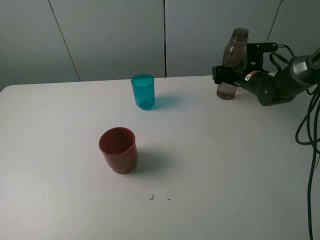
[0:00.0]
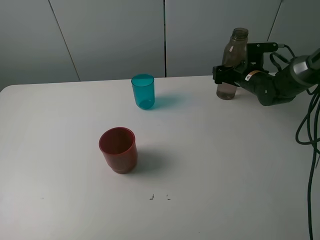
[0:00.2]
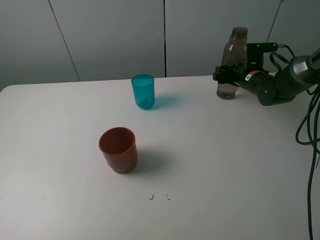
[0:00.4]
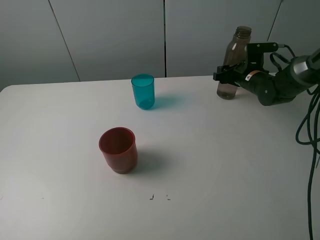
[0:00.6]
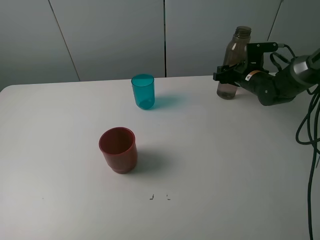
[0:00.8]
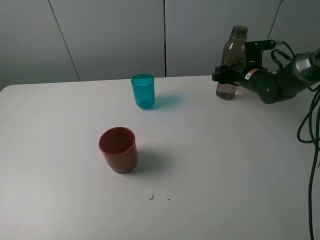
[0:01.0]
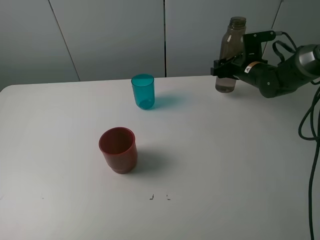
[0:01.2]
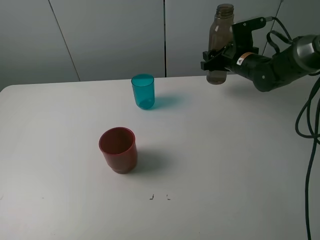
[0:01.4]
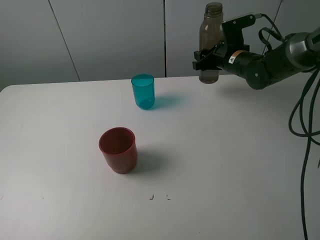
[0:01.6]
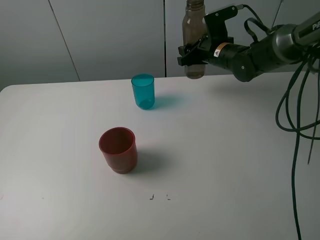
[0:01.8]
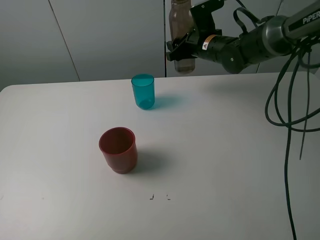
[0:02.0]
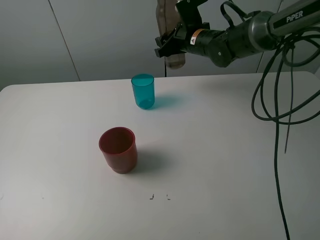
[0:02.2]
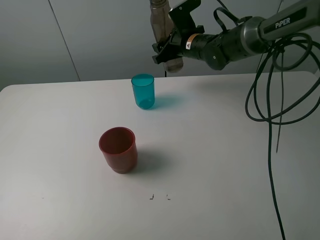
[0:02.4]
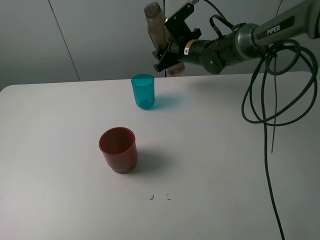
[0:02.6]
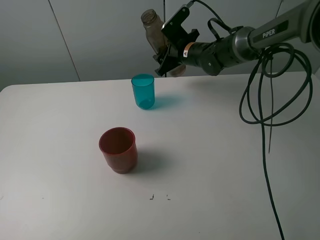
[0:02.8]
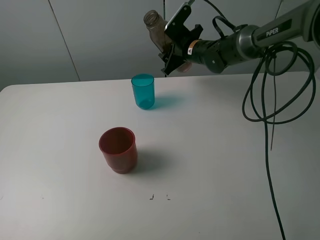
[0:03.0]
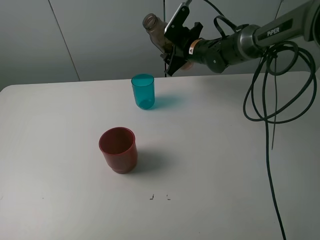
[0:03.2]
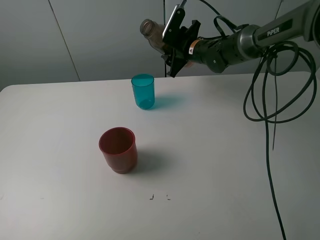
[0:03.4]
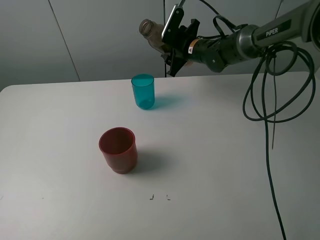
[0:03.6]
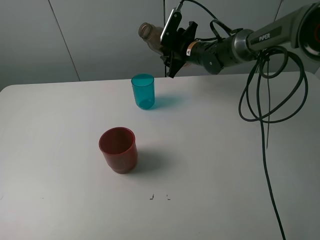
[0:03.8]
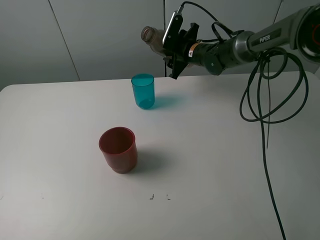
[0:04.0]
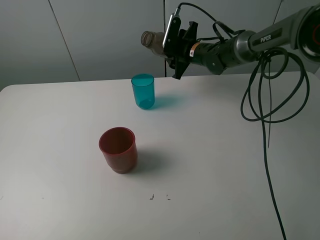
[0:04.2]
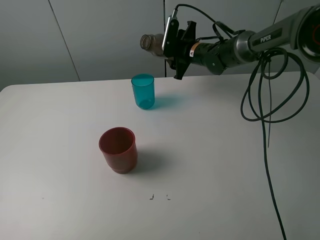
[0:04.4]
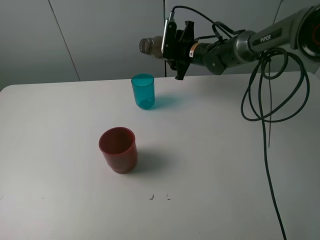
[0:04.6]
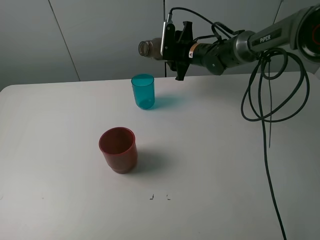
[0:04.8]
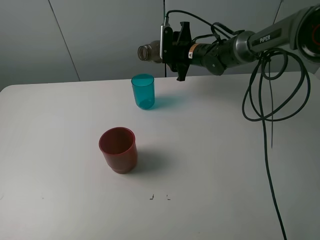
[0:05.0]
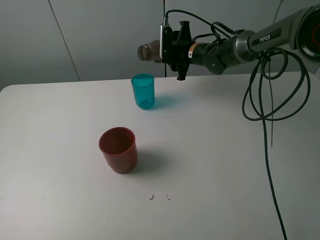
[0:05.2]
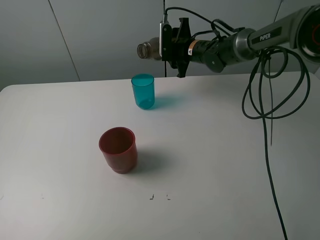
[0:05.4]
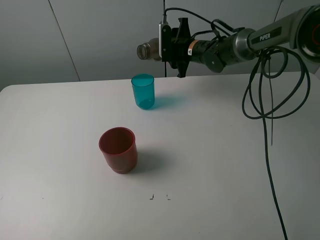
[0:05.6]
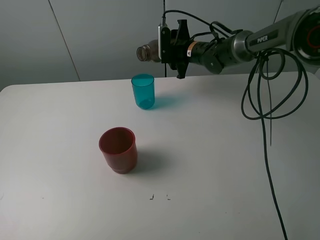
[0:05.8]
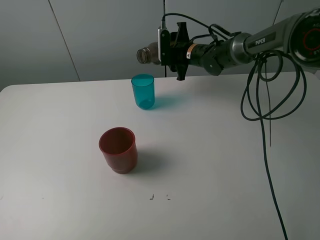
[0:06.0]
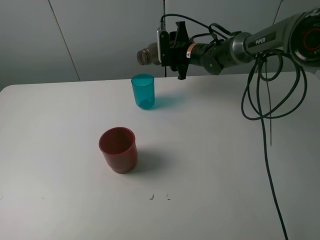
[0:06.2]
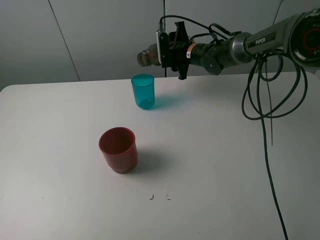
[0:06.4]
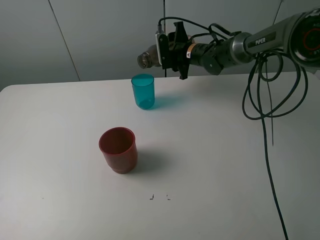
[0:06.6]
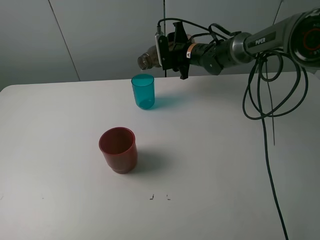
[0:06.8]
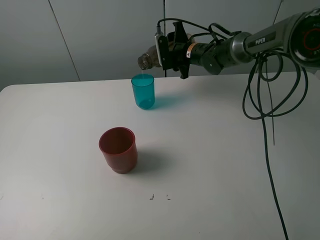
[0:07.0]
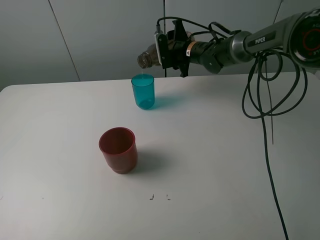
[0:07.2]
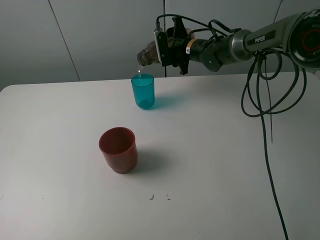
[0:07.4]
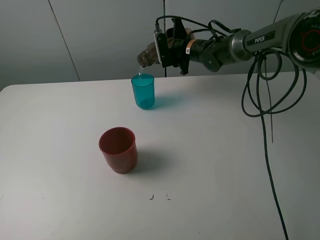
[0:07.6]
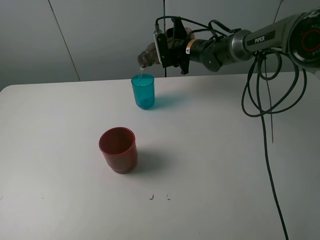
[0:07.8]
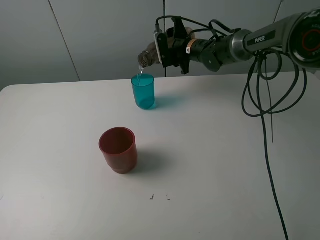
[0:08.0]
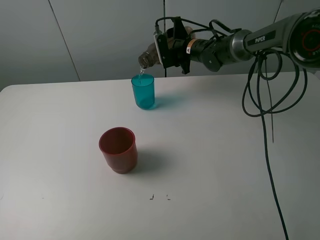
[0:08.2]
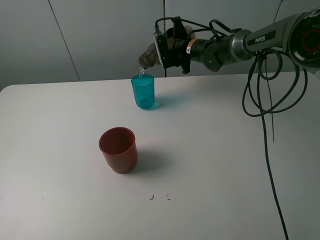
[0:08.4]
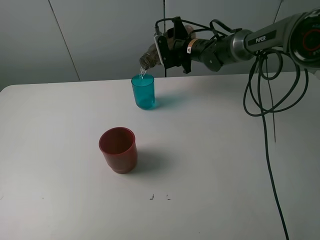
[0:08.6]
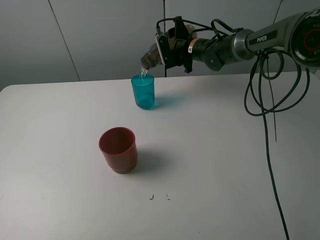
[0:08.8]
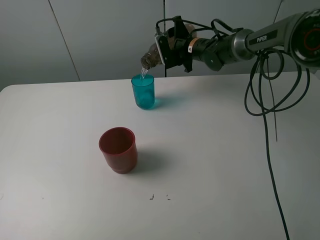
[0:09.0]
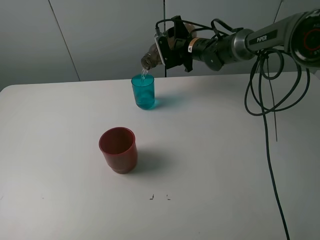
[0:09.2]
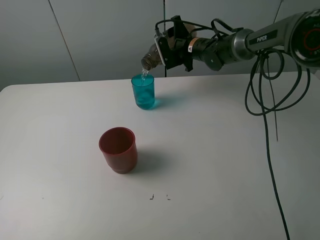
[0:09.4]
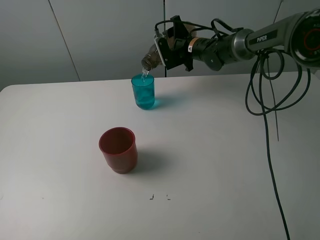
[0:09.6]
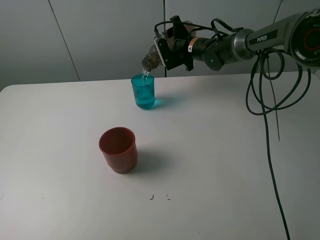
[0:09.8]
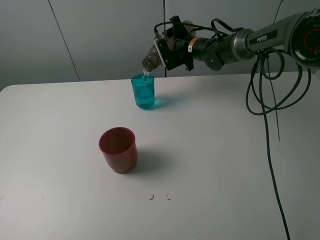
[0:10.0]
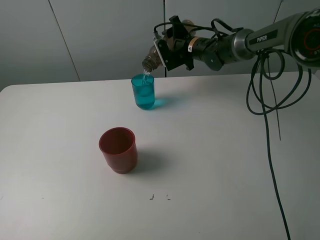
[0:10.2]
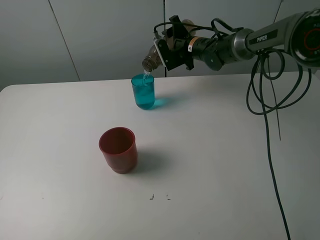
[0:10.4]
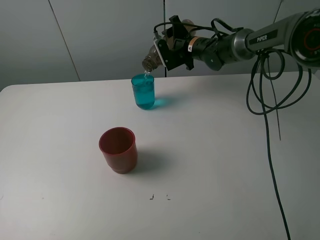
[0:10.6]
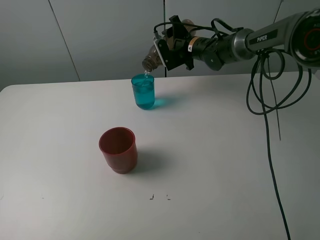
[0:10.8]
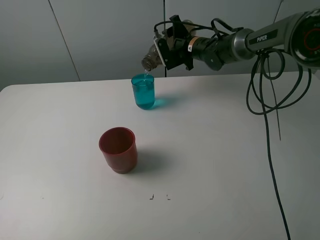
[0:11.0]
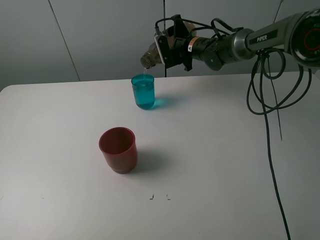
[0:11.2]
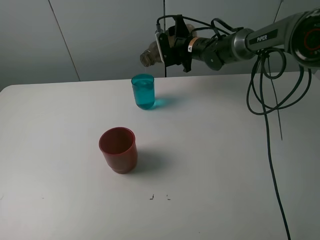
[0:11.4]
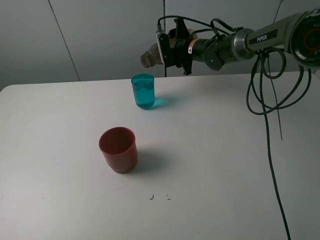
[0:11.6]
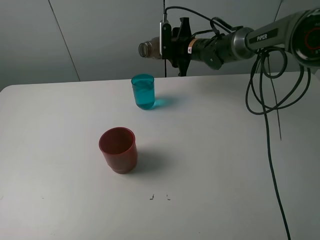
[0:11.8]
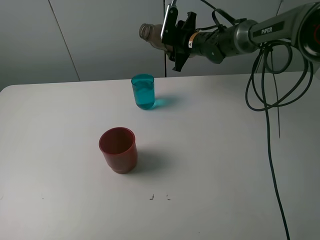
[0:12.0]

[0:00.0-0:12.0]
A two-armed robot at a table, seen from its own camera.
Task of the whole recording: pick up the bottle and pour water into the cup, then pick up the cup containing water and pour it into another cup.
Step, 0:00.8 to 0:11.6: Pour water from brown bottle to blue cup with the right gripper.
0:00.0 to 0:01.6: The right gripper goes roughly 10 cm to the left and upward, and closes up.
0:01.6 to 0:03.0: The right gripper shifts some 10 cm to the left.
0:04.4 to 0:06.0: The grippers stay close to where they were, moving slightly.
0:06.0 to 0:09.0: The grippers stay close to where they were, moving slightly.
0:09.0 to 0:10.4: The grippers make only small movements.

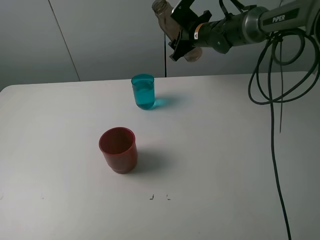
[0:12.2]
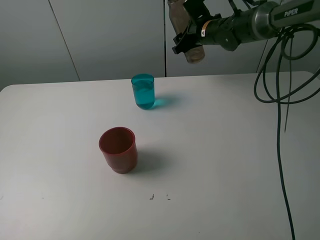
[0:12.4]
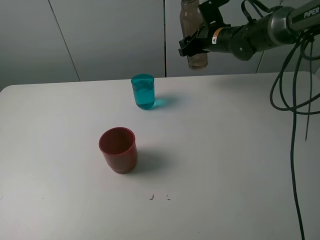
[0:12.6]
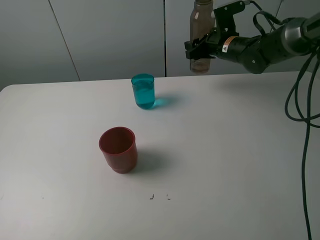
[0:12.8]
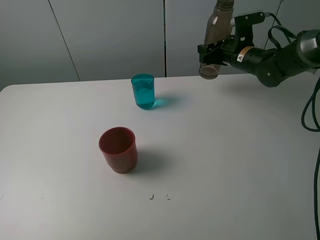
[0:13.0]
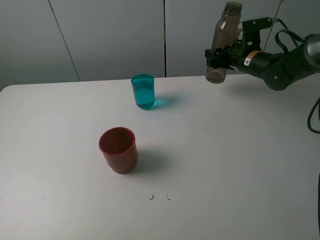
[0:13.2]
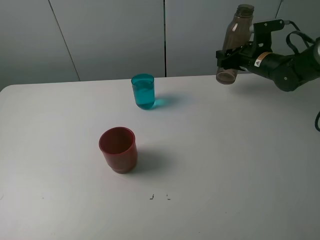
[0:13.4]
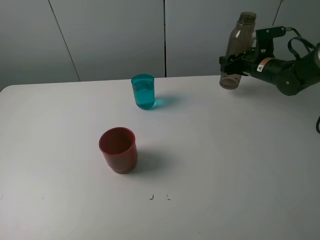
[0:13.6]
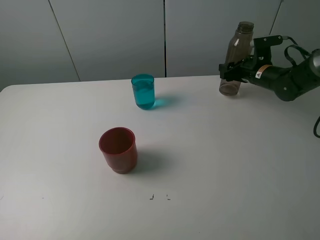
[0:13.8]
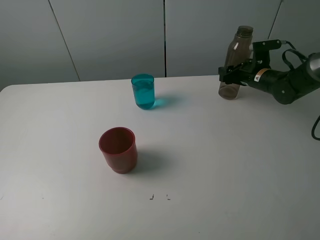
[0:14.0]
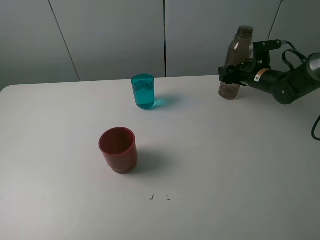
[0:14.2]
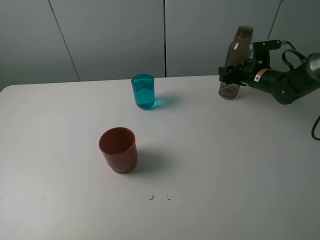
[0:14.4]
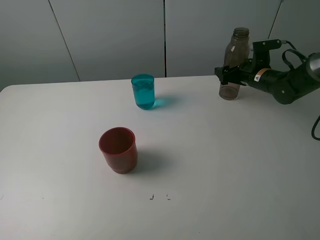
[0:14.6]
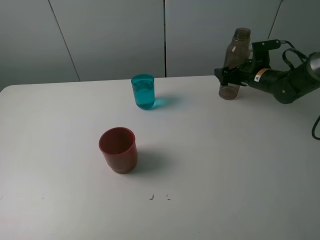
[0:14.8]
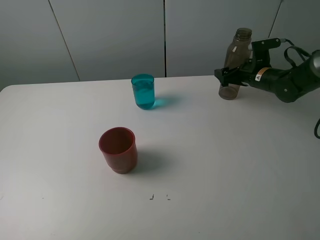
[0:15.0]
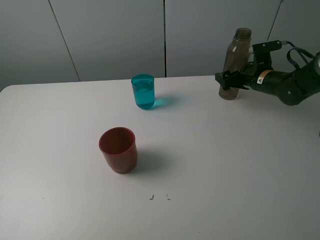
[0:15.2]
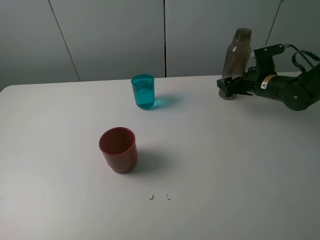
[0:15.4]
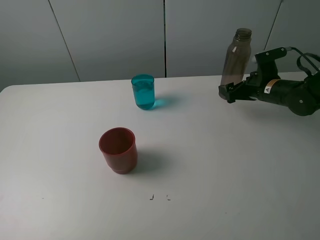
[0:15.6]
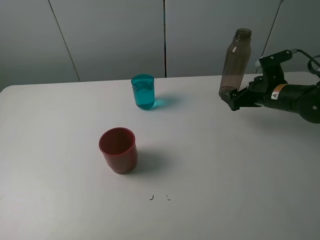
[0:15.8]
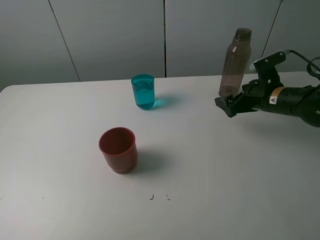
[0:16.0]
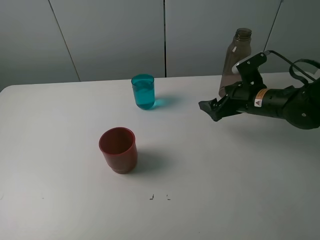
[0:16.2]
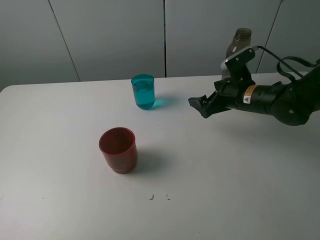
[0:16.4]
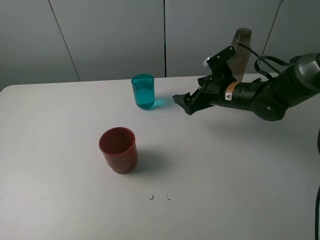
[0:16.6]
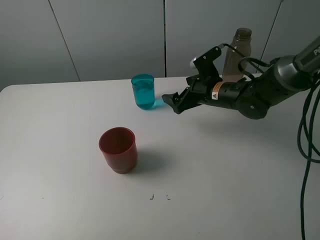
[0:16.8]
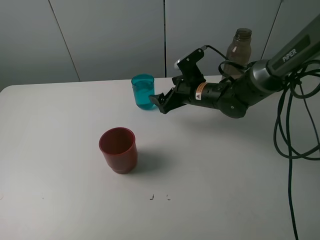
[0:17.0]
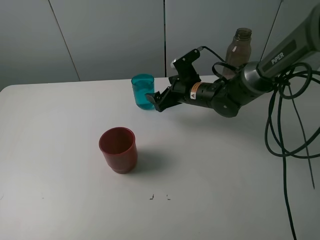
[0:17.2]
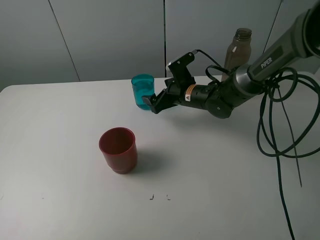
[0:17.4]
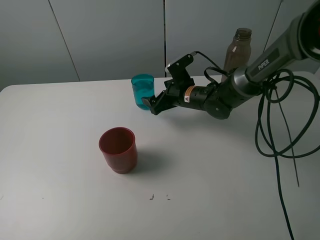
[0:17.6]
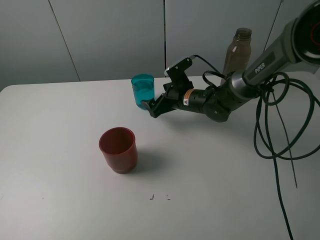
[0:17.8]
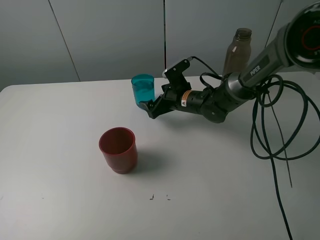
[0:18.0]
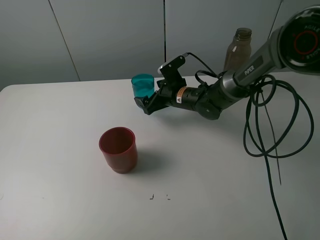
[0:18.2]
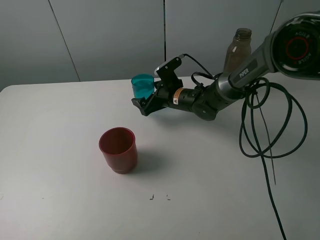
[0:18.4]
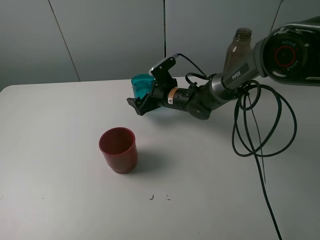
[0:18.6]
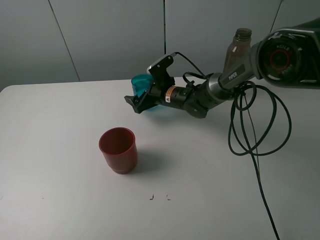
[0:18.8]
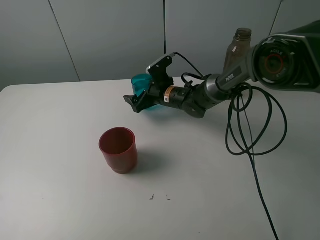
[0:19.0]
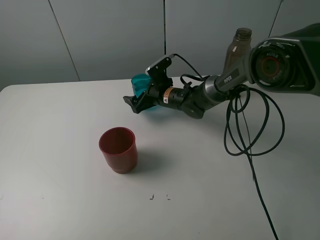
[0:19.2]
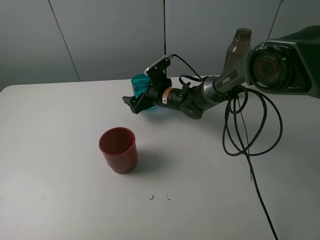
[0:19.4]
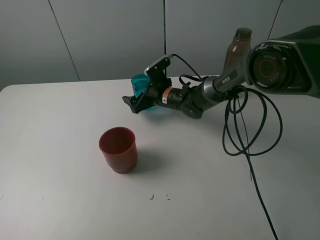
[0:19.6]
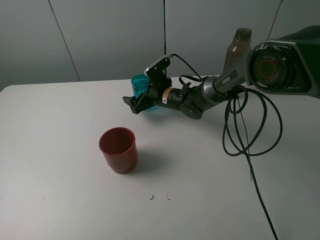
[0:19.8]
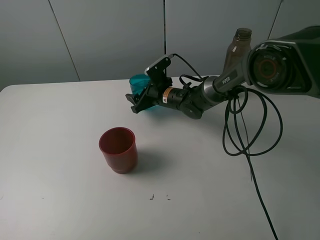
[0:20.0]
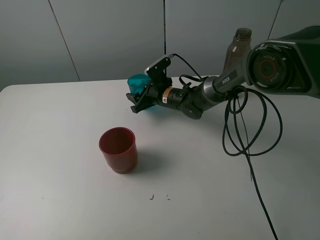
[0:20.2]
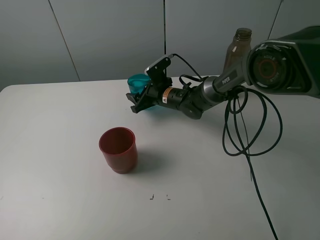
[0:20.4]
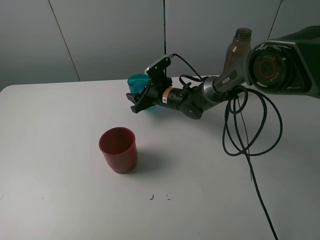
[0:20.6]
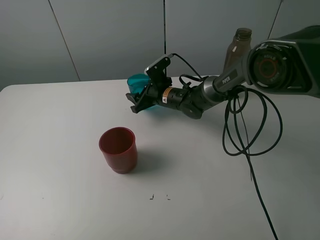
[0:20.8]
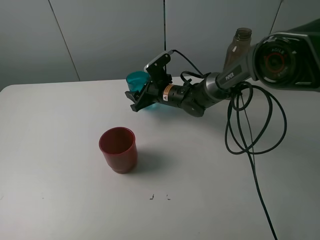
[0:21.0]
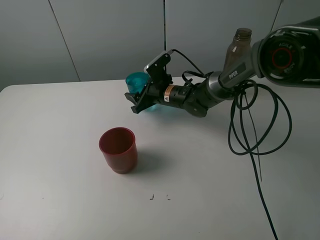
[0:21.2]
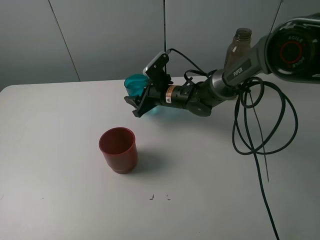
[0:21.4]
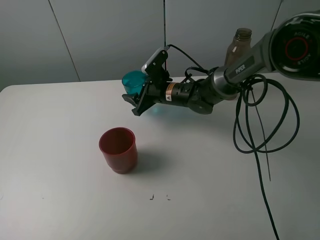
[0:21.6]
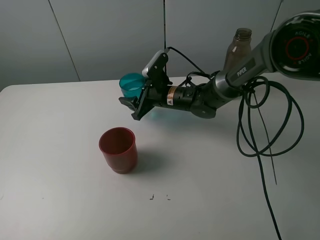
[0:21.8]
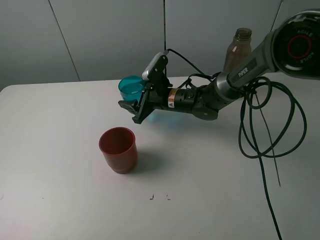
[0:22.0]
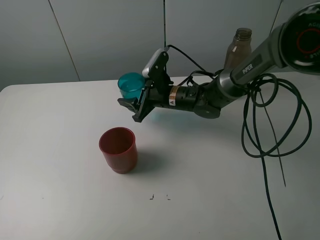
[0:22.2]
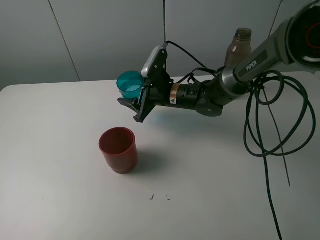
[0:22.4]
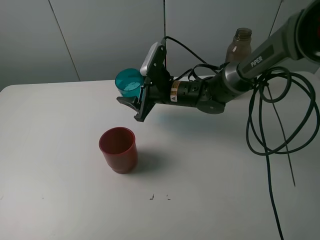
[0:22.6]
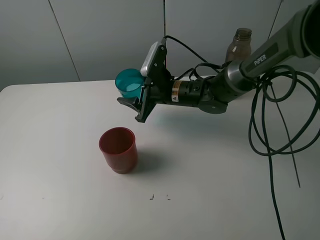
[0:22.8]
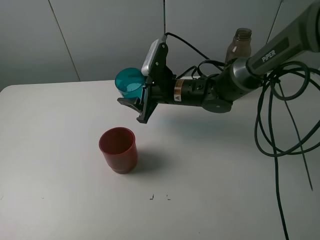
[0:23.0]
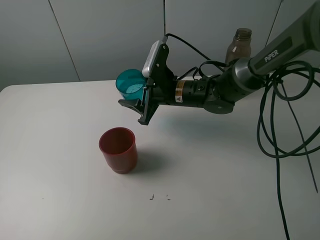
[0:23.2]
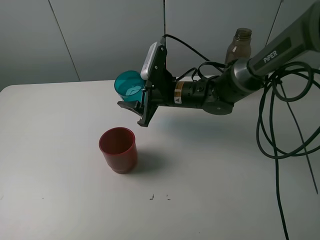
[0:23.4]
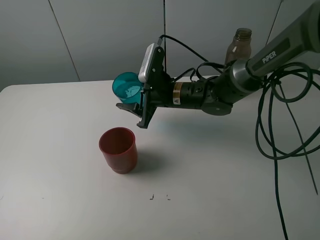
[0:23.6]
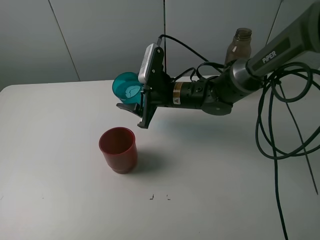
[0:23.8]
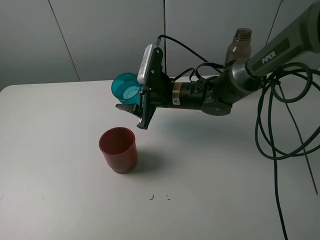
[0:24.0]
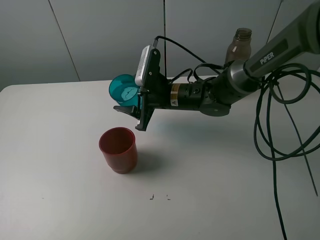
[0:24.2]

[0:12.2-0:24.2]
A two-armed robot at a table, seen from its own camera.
Task of the whole recording: pick up the bottle and pour water into the cup, then pick up the cup containing water and pour it into another cup.
Step, 0:12.2 to 0:15.0: Place the brown bottle with the right gripper.
Step, 0:15.2 to 0:20.2: Grasp the blue cup with the right gripper.
0:12.2 to 0:13.8: The right gripper shifts approximately 20 cm to the right, downward and backward.
0:13.8 to 0:15.2: The right gripper opens up.
0:15.2 to 0:16.6: The right gripper shifts approximately 15 cm to the left and backward.
0:16.6 to 0:18.2: The right gripper heads to the left, forward and downward, covering some 10 cm.
0:18.2 to 0:19.8: There are only small adjustments of the grippers.
0:19.8 to 0:21.2: The right gripper closes its fingers.
0:21.2 to 0:22.6: The right gripper ends up some 5 cm from where it was.
0:22.6 to 0:24.2: The grippers move only a little.
